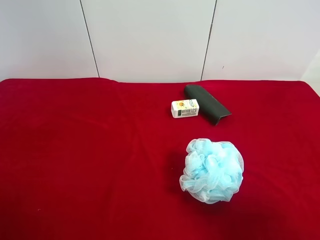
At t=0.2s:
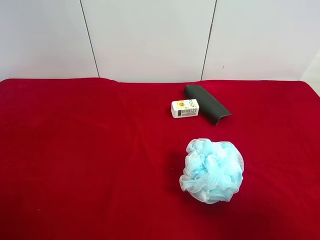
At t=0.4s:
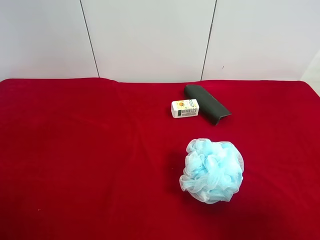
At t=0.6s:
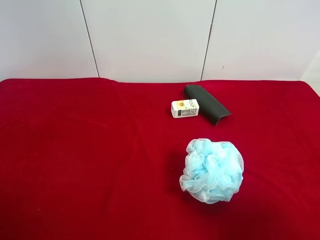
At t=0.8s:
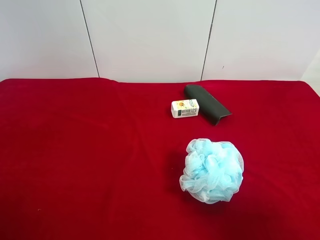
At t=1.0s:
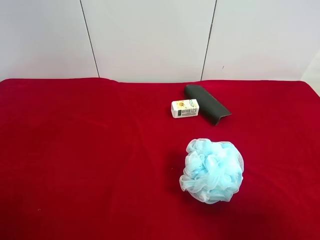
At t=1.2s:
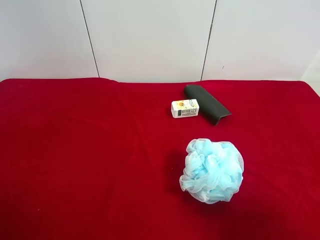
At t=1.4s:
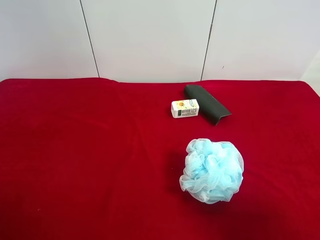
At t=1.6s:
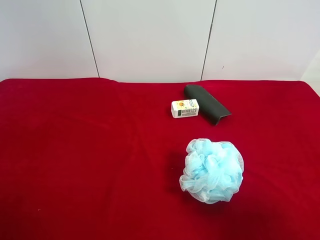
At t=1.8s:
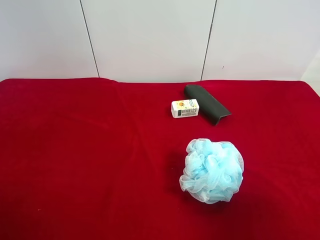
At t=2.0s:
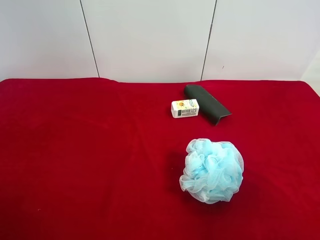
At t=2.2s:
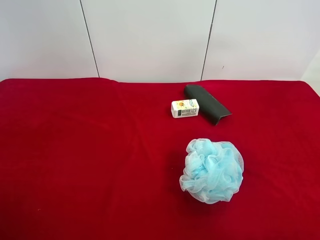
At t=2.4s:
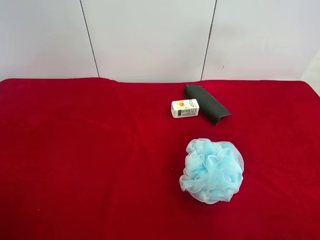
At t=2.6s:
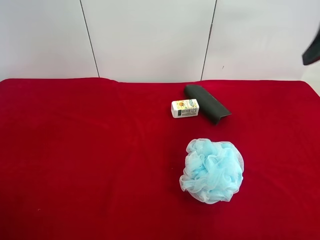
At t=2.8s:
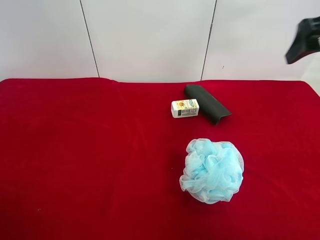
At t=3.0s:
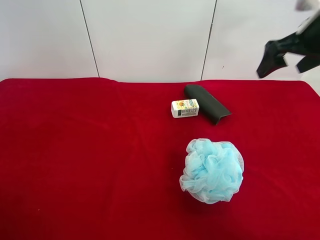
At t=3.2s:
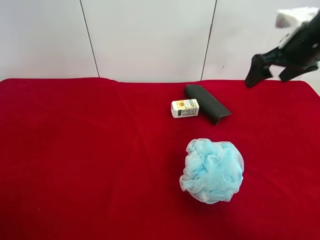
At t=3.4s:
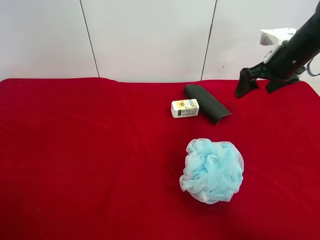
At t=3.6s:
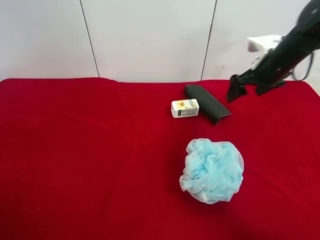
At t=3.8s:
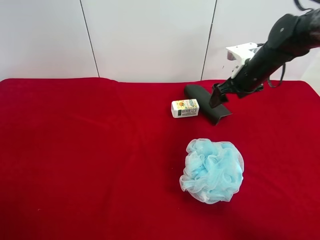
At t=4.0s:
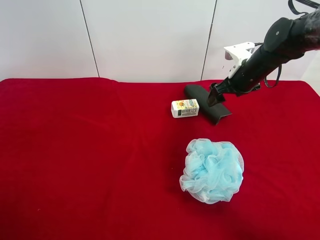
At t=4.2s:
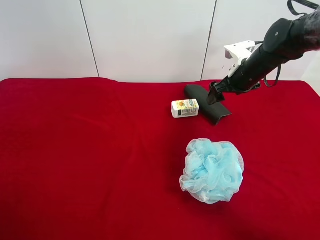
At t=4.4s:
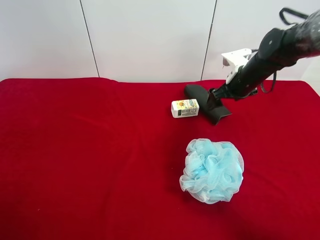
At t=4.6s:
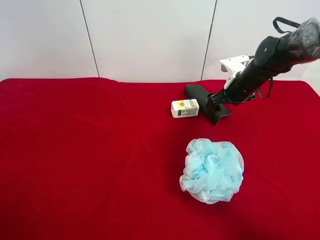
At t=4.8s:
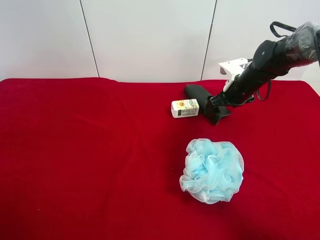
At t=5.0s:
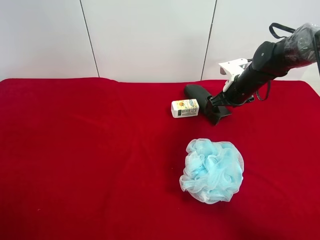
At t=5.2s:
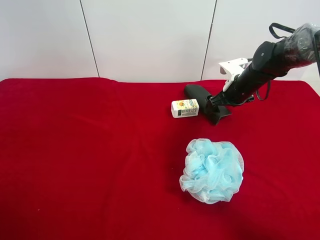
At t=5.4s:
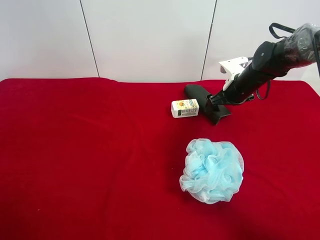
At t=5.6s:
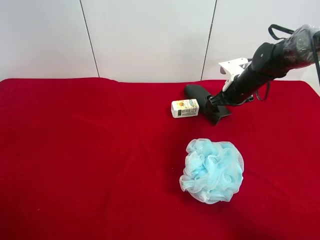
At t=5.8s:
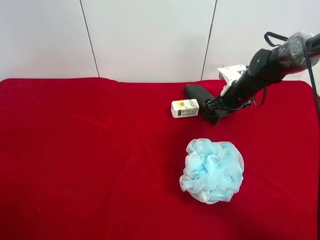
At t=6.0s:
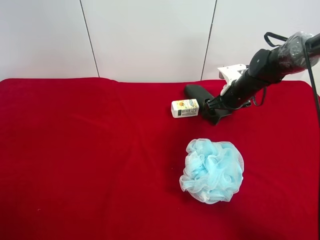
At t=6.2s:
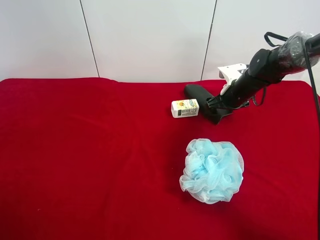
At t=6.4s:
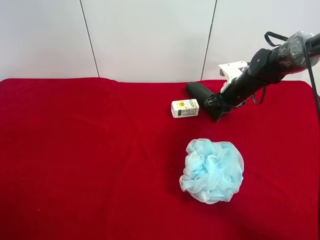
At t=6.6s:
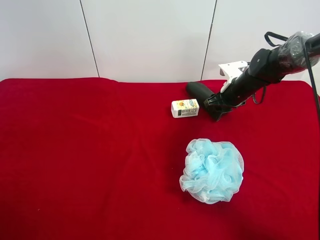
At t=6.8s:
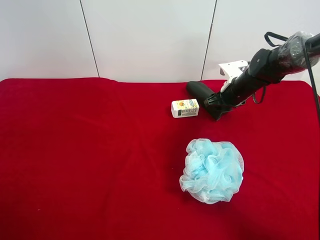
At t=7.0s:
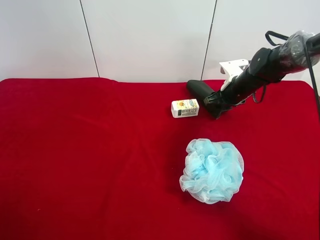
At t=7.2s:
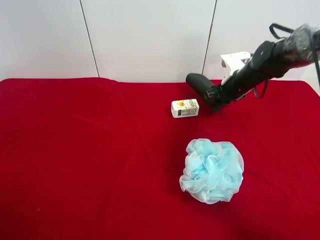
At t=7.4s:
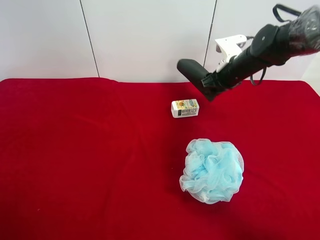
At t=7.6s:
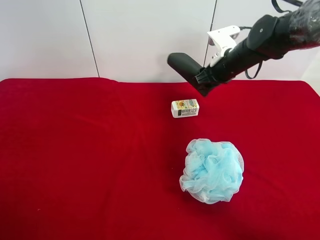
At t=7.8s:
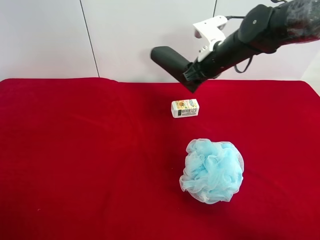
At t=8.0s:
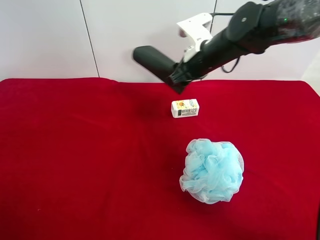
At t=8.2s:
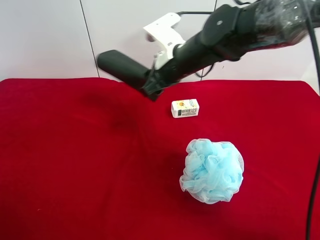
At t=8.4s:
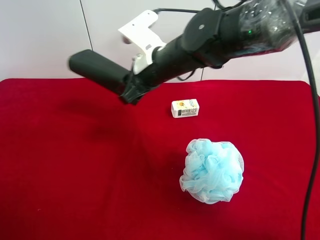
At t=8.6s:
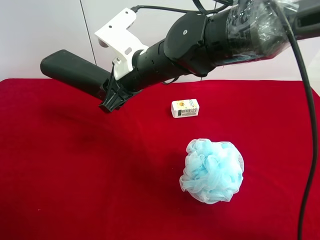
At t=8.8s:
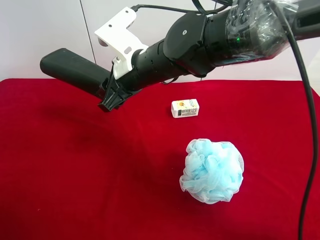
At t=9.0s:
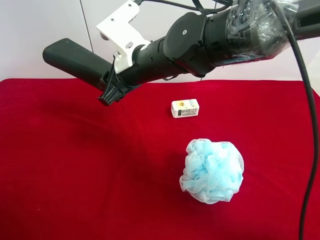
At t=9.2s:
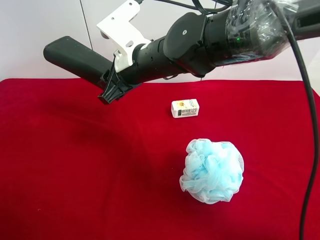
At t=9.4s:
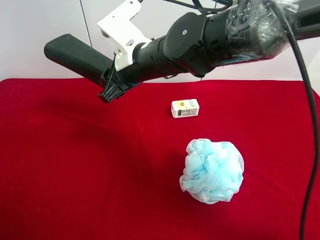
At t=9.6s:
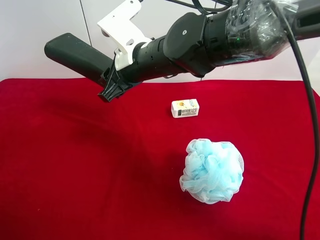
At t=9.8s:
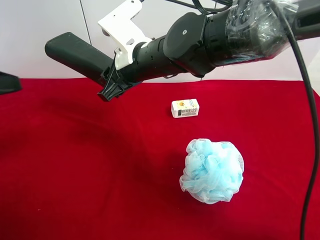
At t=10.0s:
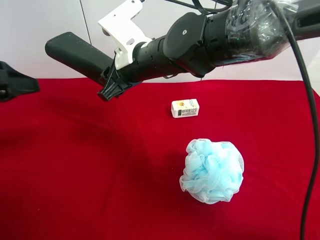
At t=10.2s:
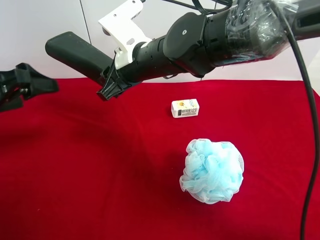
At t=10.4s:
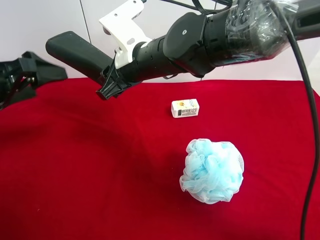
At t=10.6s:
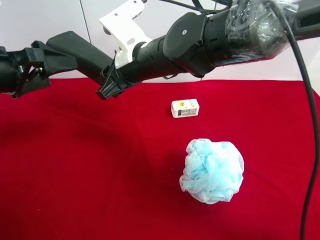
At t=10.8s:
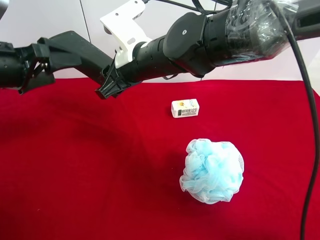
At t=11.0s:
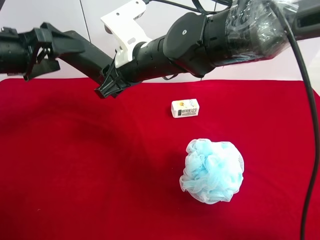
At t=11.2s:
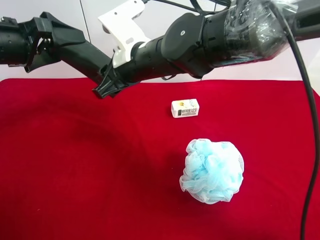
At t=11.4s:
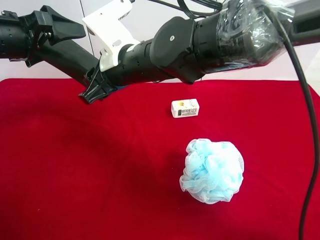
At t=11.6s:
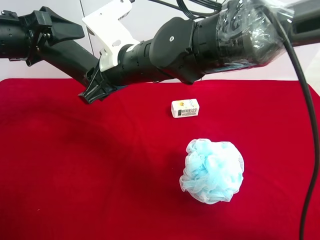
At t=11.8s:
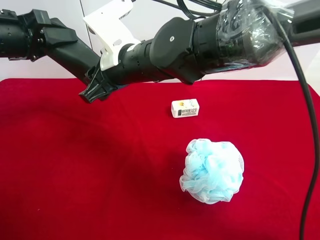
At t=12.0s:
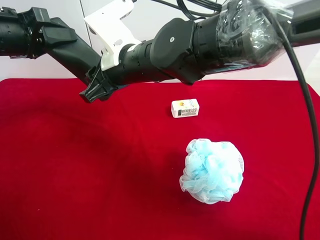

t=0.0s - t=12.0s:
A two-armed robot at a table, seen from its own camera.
Task of the whole recording: use the right gripper to pick up the item and transfer it from the right gripper to the left gripper.
Step, t=0.0s - t=6.2s: Use the right gripper to grab the eyeglass case on the right side of the table.
t=0.0s - t=1.6s: Both grippers stay put.
t=1.6s - t=3.0s: The right gripper heads forward, covering about 30 cm.
t=3.0s - t=4.4s: The right gripper heads downward and forward, covering roughly 15 cm.
t=4.4s - t=6.0s: The grippers make only small movements.
t=6.0s - t=7.6s: The right gripper travels upward and to the left by approximately 10 cm, and closes its fingers.
t=7.6s - t=9.0s: The right gripper goes some 20 cm to the left and backward.
t=9.0s - t=10.4s: The left gripper is displaced forward by approximately 20 cm.
t=10.4s - t=12.0s: The left gripper moves forward, roughly 5 cm, and closes.

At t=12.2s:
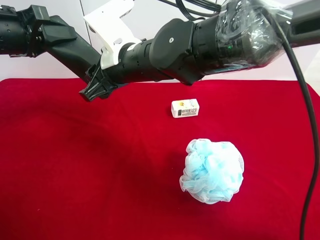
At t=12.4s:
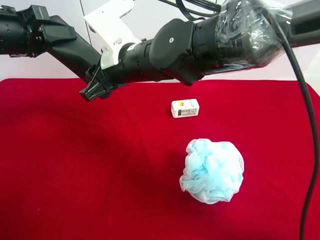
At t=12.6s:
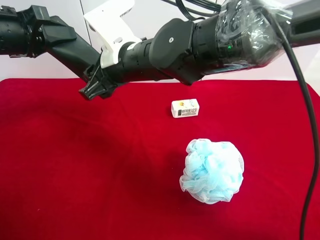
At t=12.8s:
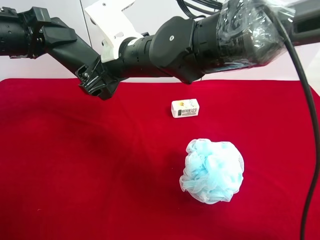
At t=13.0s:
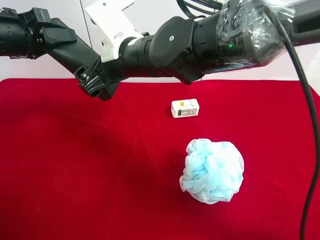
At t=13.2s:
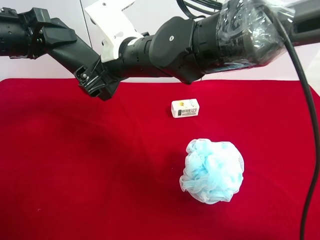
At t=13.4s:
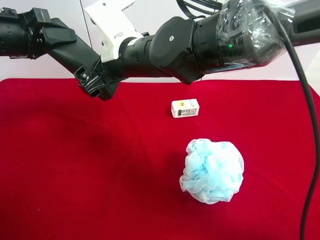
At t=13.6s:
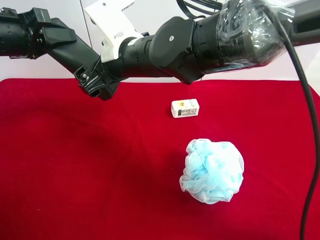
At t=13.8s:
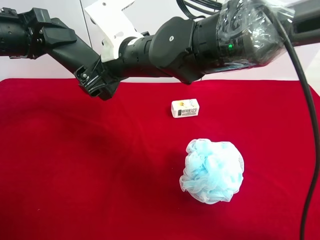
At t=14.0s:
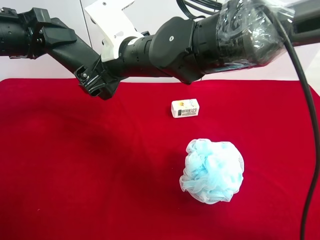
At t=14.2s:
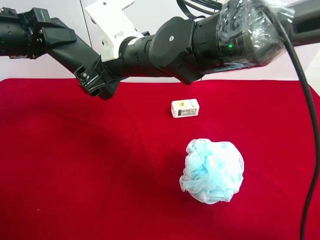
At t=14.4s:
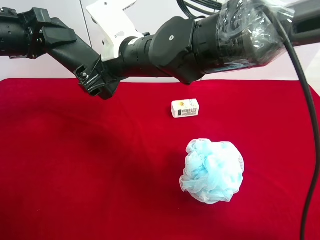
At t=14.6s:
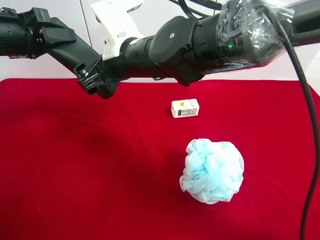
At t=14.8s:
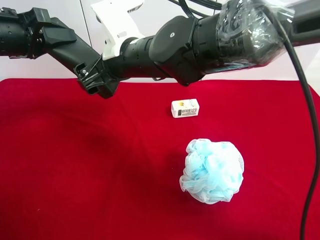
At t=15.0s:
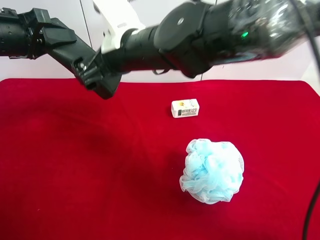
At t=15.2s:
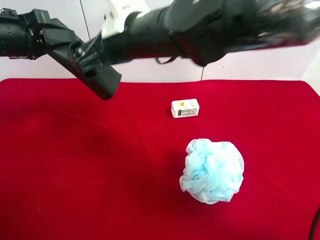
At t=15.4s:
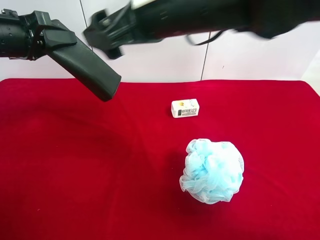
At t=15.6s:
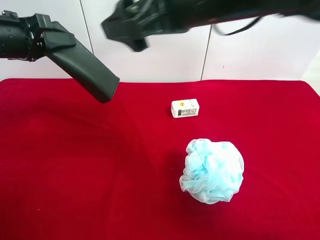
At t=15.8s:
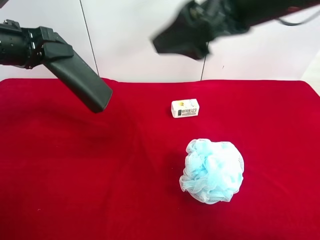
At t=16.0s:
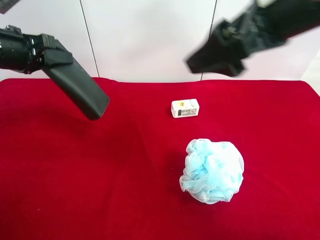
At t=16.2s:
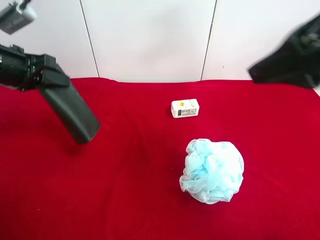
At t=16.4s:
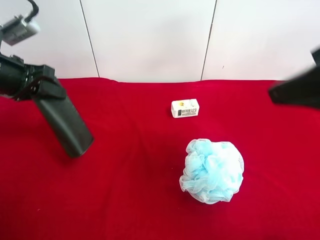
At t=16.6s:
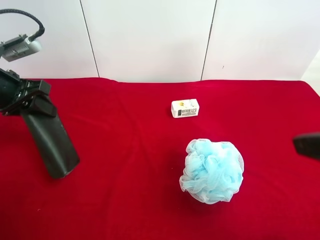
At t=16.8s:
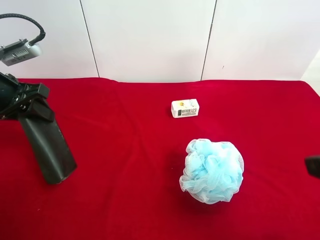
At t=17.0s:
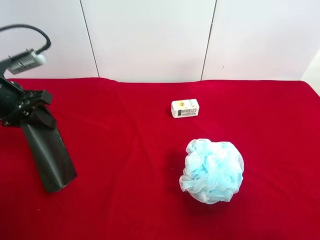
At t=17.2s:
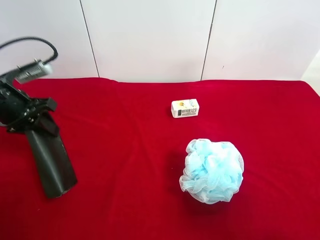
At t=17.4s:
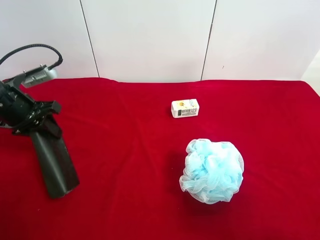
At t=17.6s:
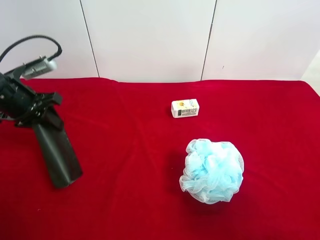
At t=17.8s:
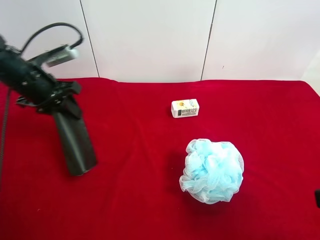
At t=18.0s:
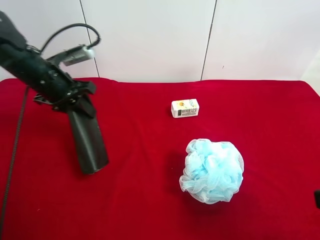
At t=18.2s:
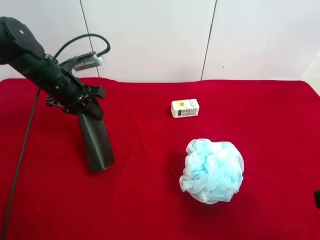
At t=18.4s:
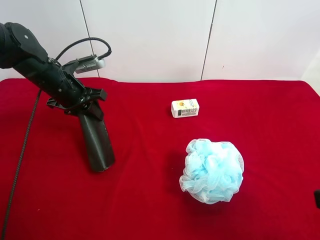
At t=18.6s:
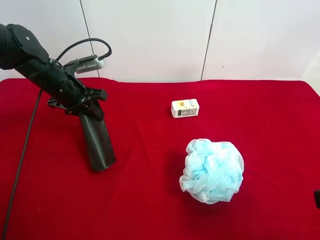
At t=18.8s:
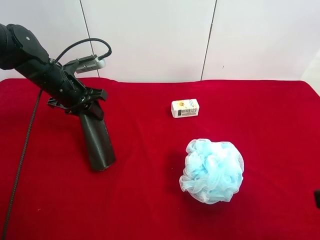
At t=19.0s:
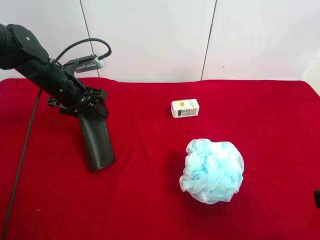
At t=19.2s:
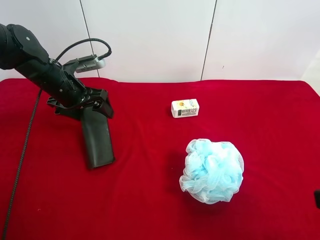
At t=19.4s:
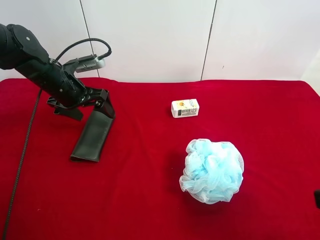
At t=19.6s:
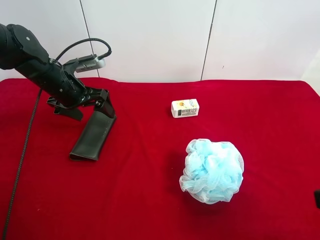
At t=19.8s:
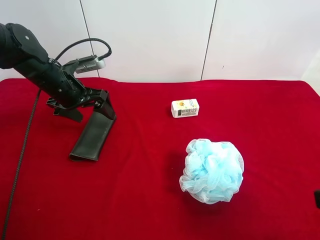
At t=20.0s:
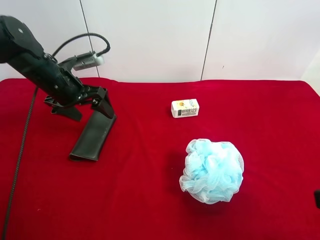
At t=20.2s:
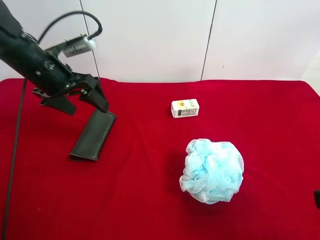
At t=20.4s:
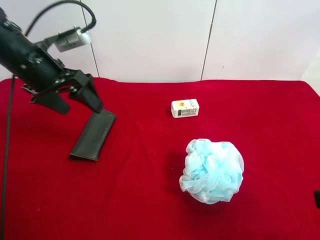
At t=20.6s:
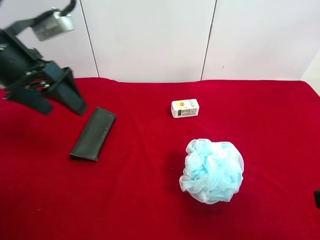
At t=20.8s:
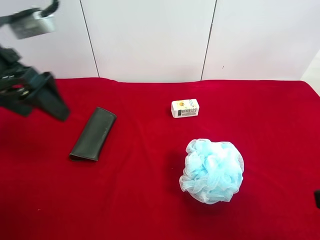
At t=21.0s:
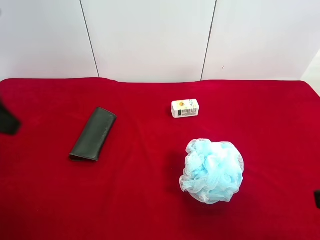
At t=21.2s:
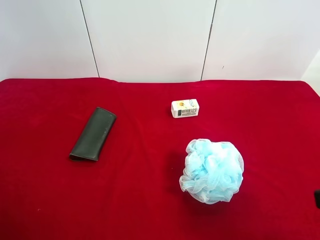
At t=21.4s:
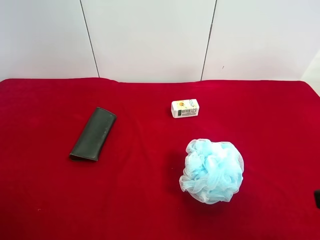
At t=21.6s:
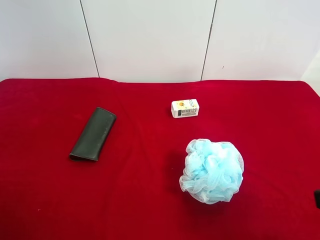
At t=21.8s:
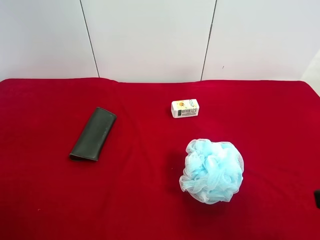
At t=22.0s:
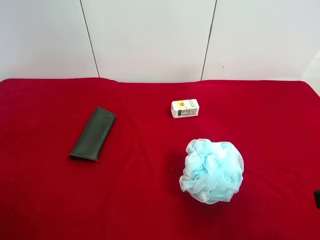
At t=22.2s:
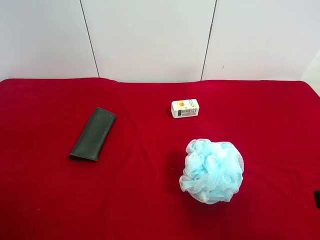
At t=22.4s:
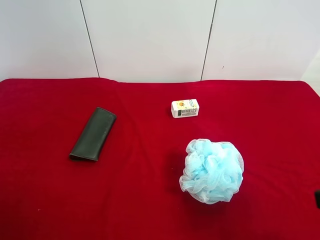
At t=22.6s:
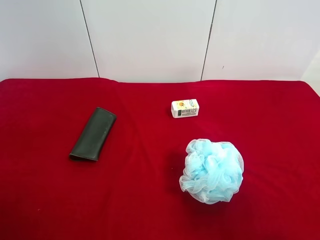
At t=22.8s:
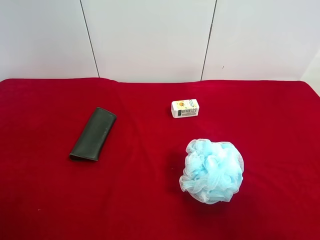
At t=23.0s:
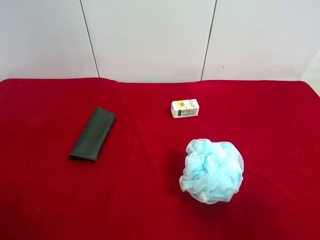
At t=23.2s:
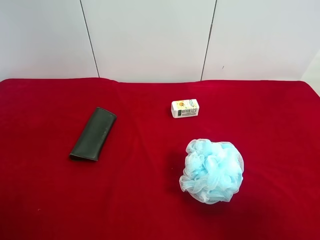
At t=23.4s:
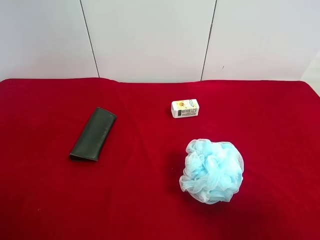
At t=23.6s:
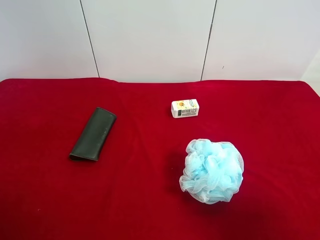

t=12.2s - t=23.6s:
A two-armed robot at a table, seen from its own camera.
Task of the whole recording: use the right gripper to pick up the item and transfer it from the right gripper to the left gripper.
Step, t=13.0s - t=19.4s: The left gripper places eyeglass case on the left side of the table.
t=12.2s - t=13.6s: The right gripper opens its fingers.
t=13.6s - t=15.0s: The grippers stay close to where they were, moving slightly.
t=15.0s - t=16.4s: The right gripper moves to the right, backward and upward, approximately 30 cm.
t=16.4s - t=17.8s: The left gripper moves approximately 5 cm. Meanwhile the right gripper shifts roughly 15 cm downward, backward and to the right.
t=17.8s - t=19.4s: The left gripper shifts by roughly 5 cm, and opens.
t=19.4s - t=20.8s: The left gripper moves upward and backward, roughly 20 cm.
t=20.8s - t=22.2s: The left gripper is displaced backward by about 20 cm.
